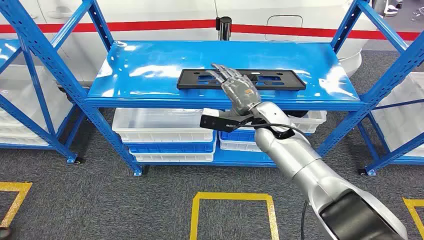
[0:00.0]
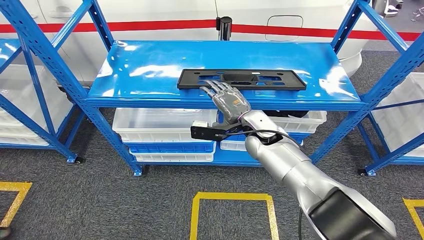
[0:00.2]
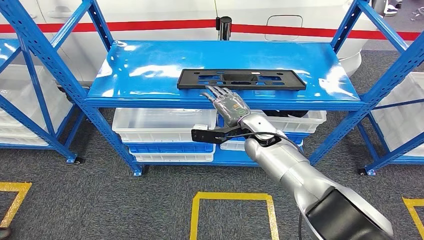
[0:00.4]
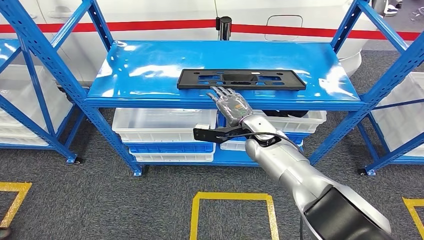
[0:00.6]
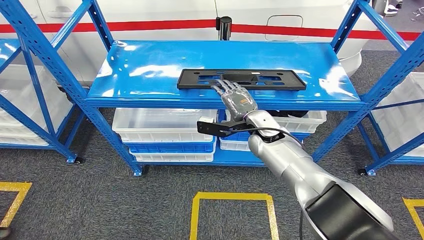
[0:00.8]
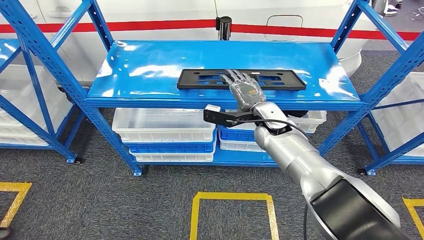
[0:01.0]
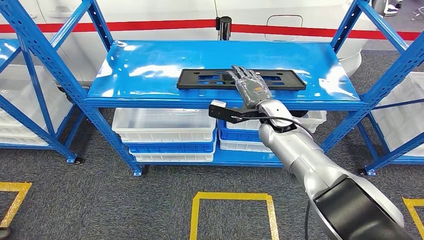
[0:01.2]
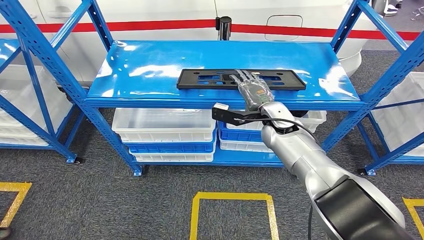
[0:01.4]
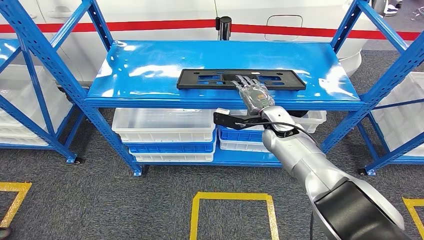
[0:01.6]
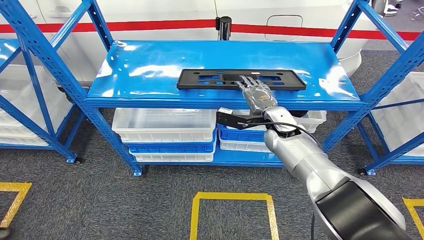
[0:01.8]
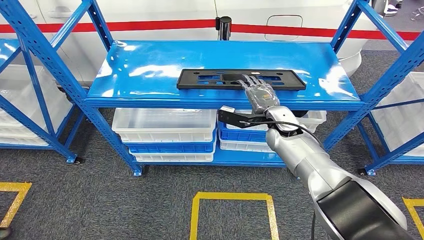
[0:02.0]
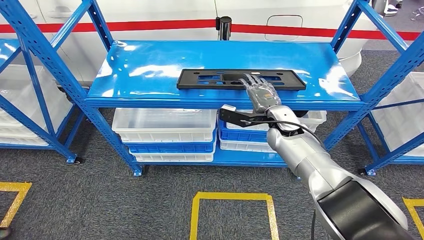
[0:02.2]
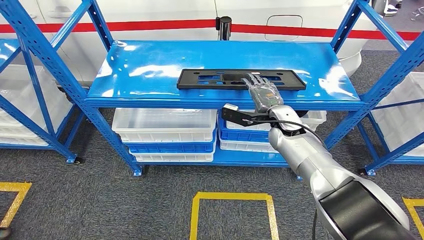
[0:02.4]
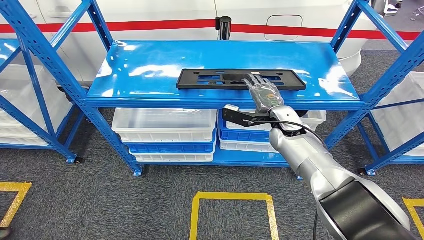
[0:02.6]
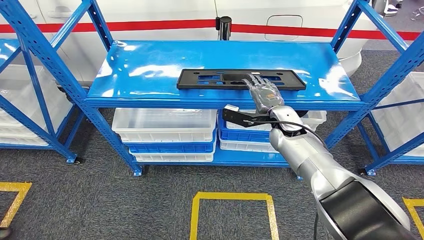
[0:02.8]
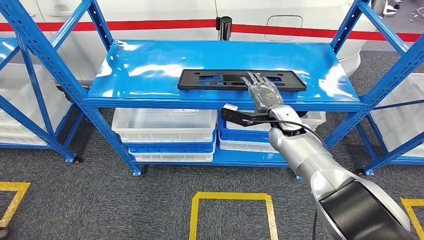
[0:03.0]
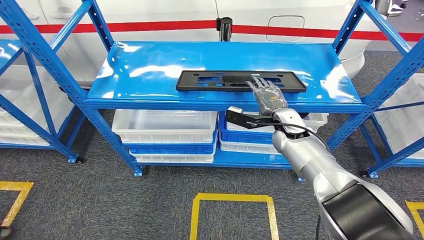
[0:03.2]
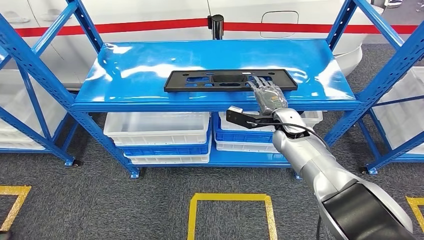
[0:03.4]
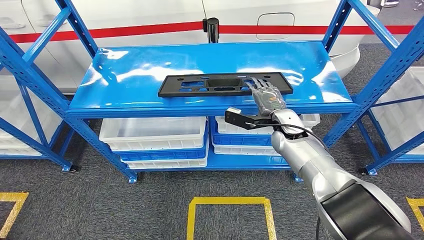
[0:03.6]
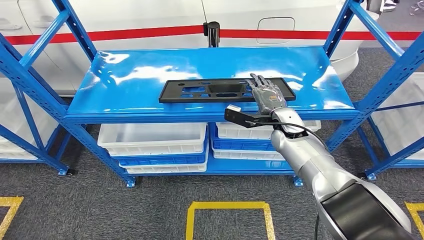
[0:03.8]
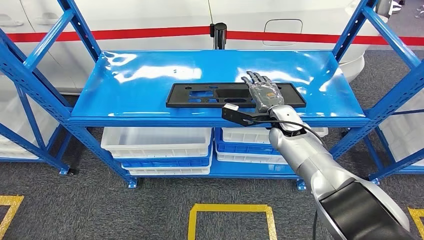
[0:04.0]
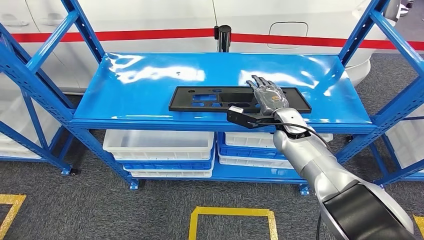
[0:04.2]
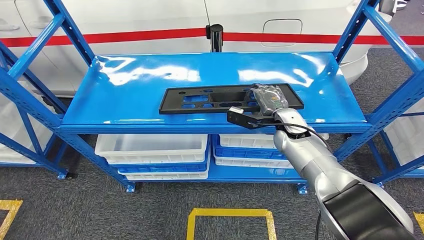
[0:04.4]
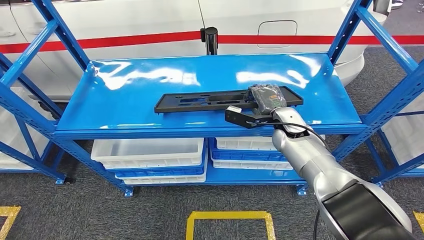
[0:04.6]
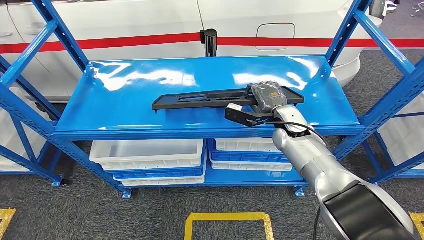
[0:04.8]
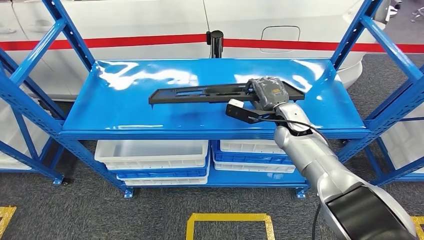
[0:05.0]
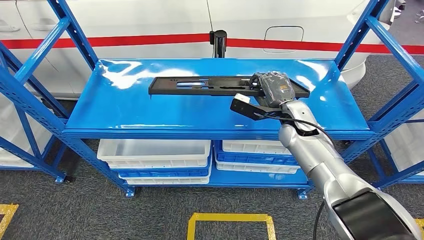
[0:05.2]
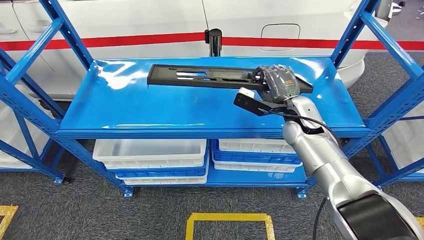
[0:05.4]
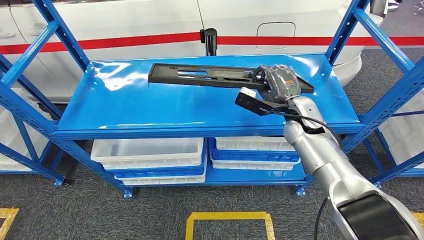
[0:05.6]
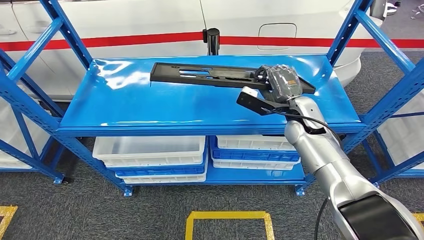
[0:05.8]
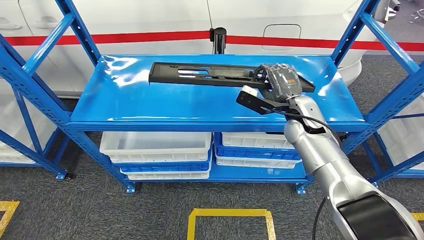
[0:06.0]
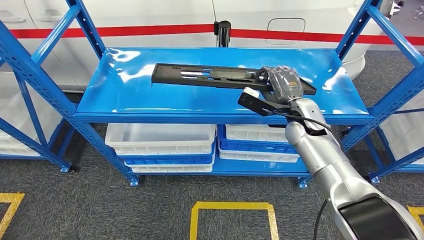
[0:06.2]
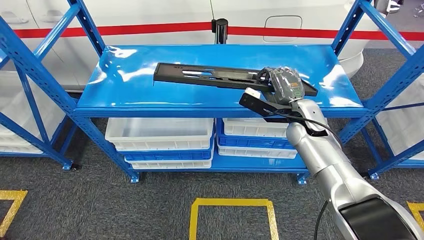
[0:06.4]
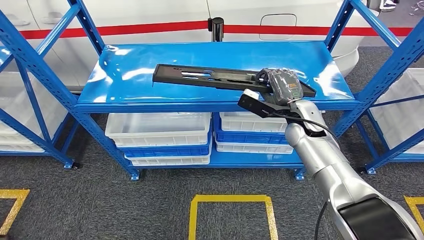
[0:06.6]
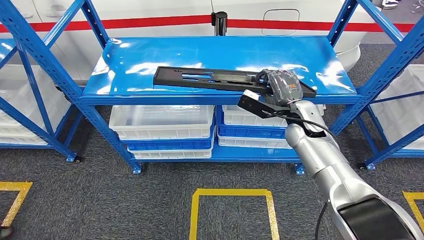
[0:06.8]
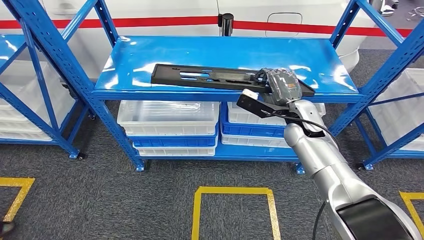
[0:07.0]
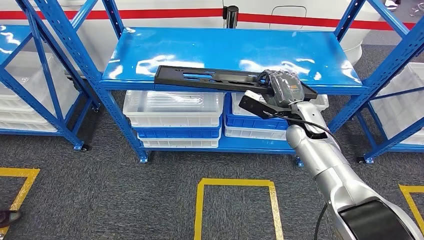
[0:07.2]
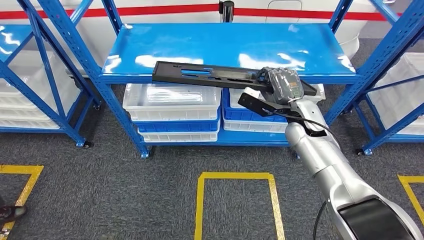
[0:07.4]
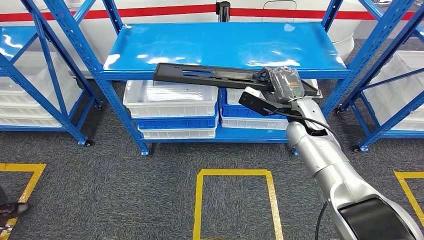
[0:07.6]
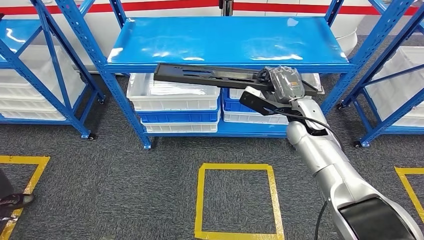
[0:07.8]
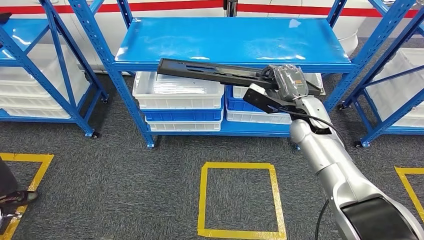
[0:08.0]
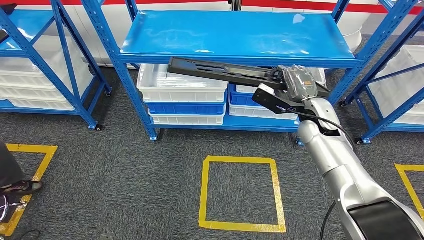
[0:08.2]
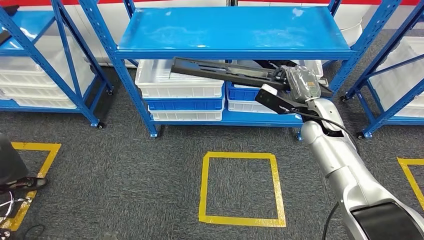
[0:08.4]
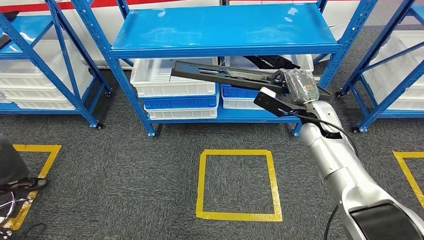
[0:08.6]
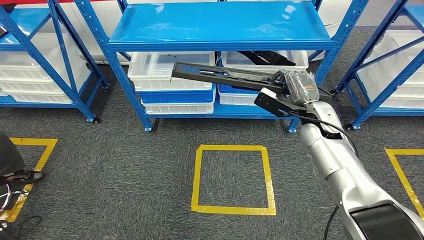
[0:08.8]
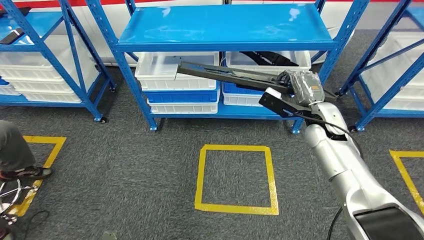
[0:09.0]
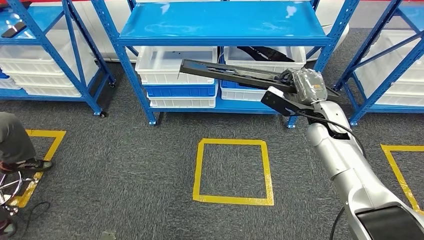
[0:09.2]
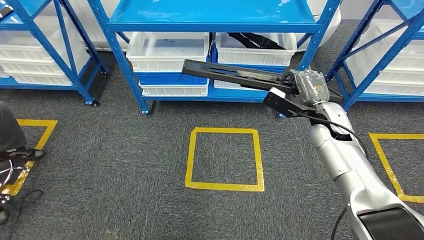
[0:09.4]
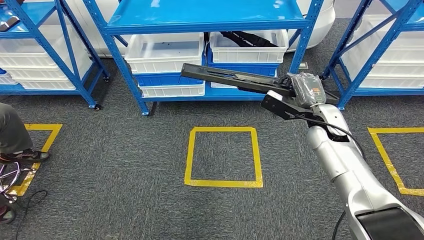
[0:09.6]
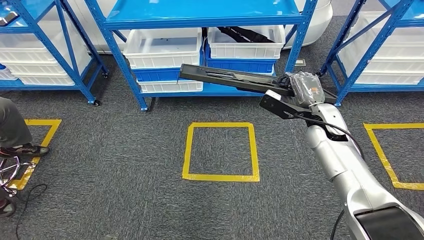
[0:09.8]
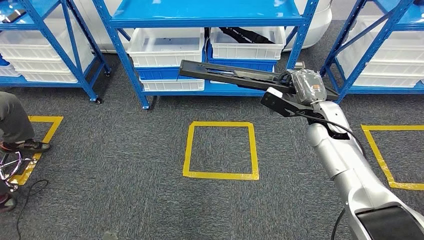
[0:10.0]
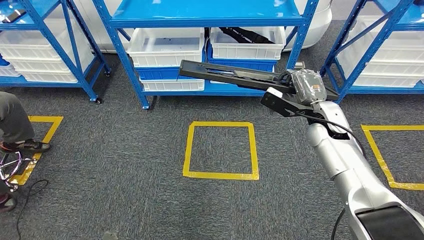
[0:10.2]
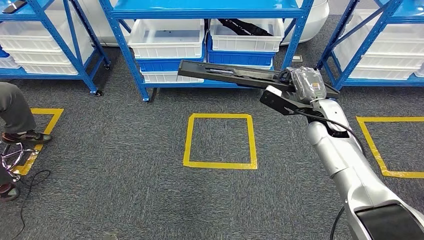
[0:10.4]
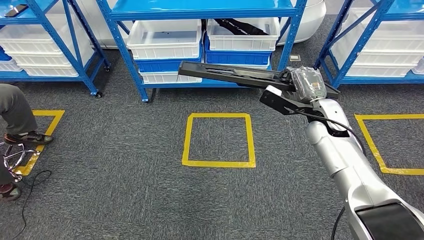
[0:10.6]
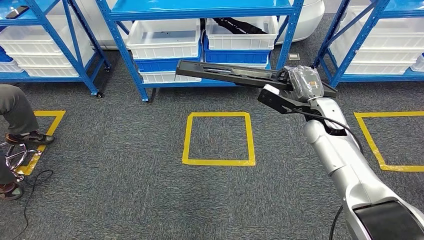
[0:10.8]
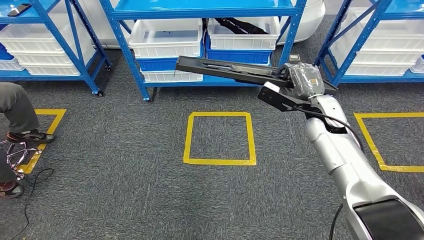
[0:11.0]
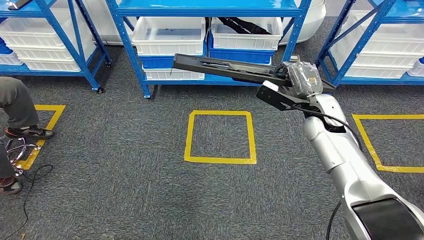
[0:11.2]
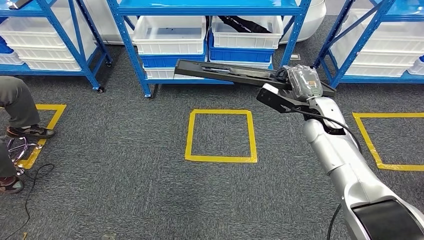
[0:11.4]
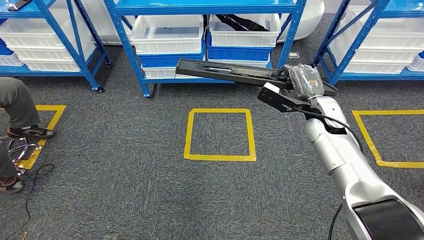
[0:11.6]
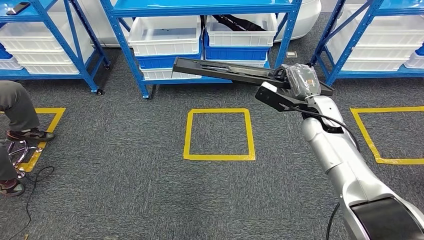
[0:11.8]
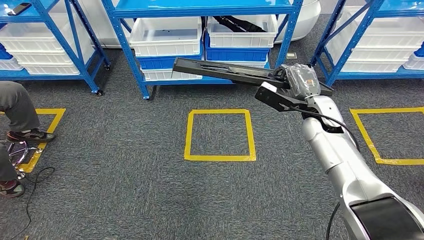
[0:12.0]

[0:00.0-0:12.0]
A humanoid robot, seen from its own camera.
Step, 0:00.0 to 0:05.0: Pick up the large material from the shelf.
0:01.6 to 0:03.0: There are only small adjustments of the hands.

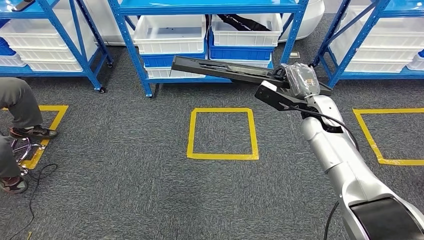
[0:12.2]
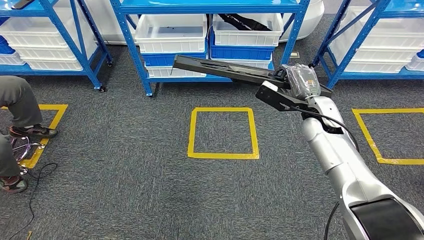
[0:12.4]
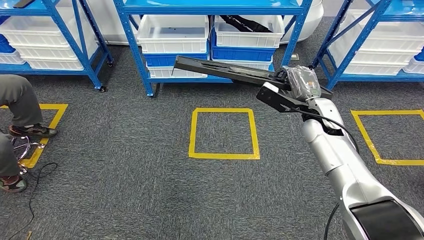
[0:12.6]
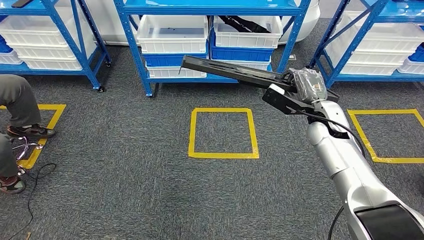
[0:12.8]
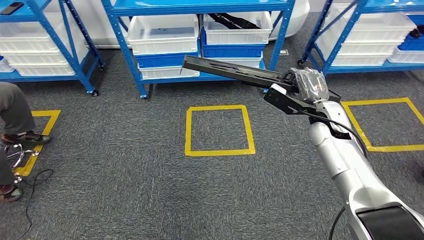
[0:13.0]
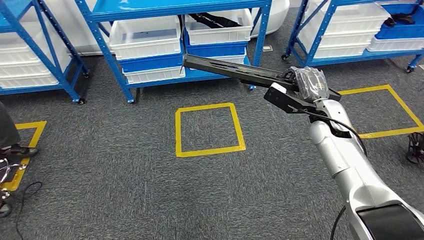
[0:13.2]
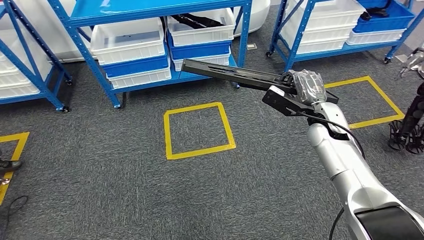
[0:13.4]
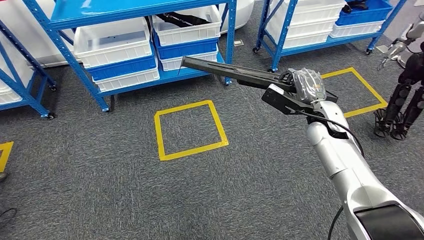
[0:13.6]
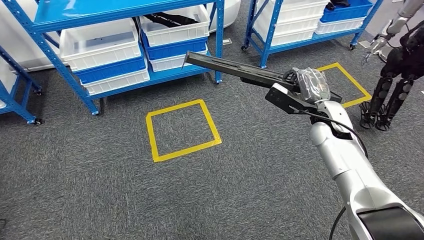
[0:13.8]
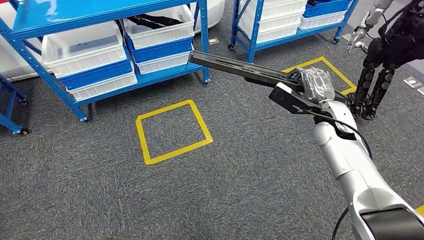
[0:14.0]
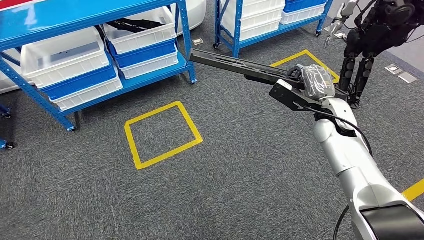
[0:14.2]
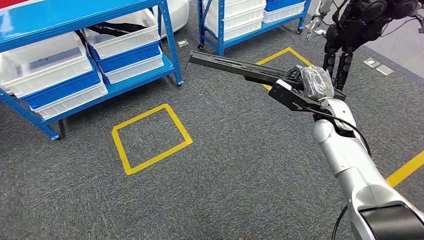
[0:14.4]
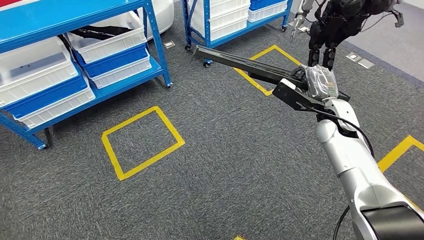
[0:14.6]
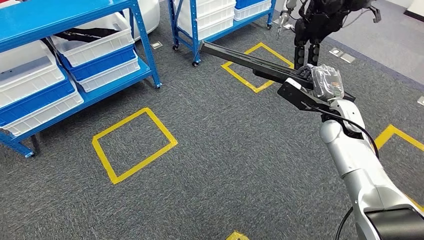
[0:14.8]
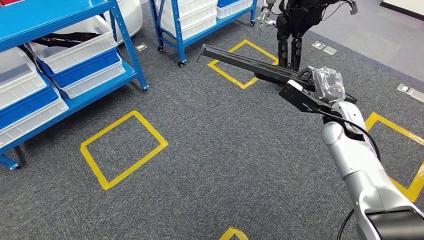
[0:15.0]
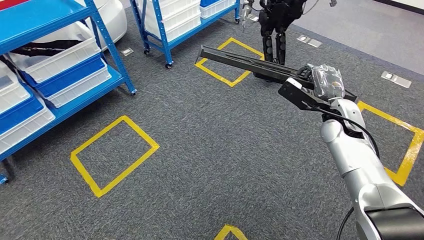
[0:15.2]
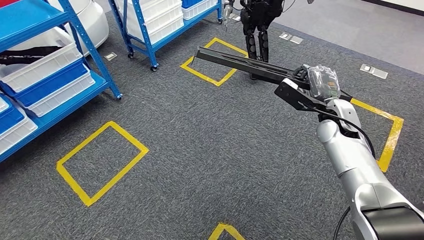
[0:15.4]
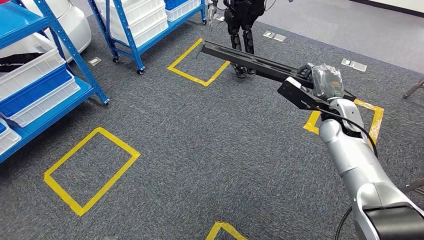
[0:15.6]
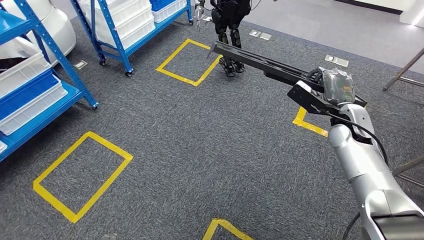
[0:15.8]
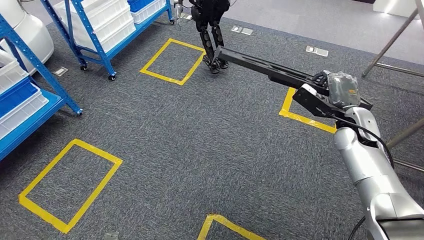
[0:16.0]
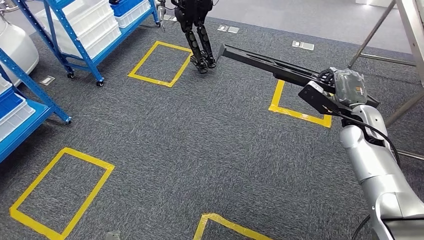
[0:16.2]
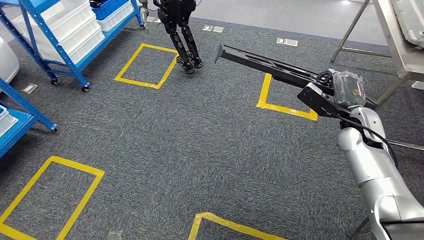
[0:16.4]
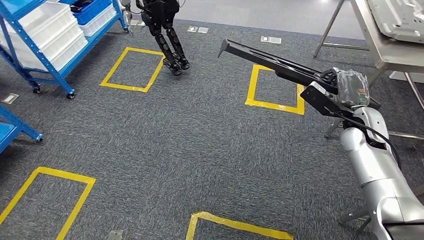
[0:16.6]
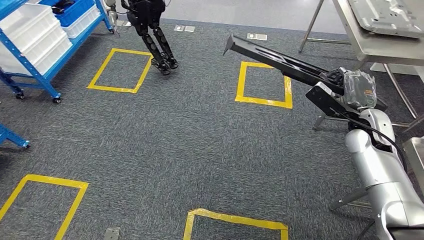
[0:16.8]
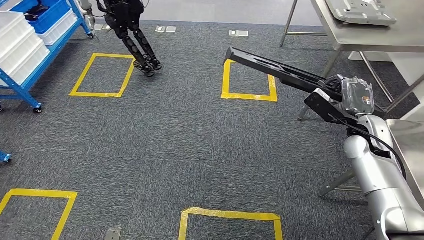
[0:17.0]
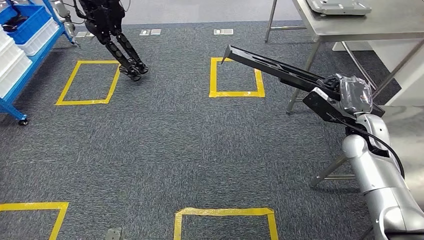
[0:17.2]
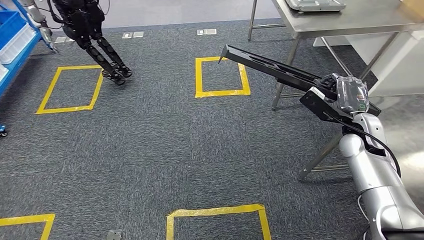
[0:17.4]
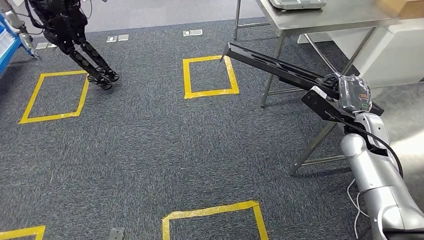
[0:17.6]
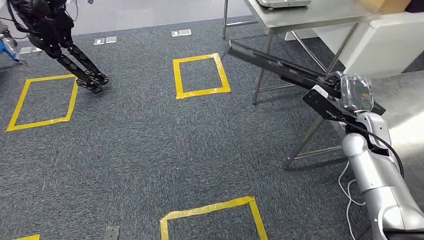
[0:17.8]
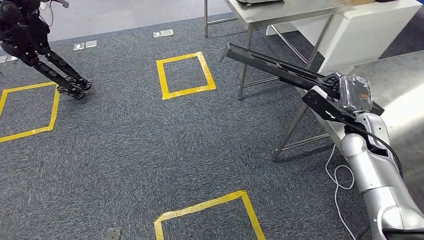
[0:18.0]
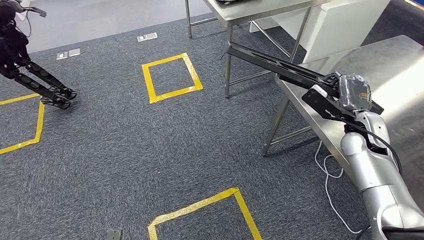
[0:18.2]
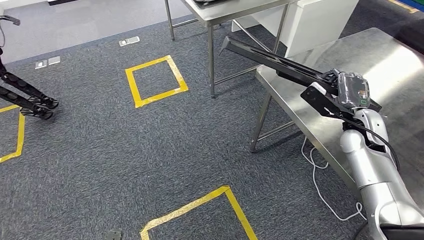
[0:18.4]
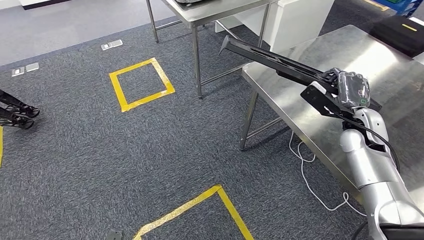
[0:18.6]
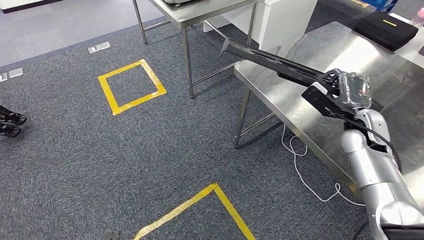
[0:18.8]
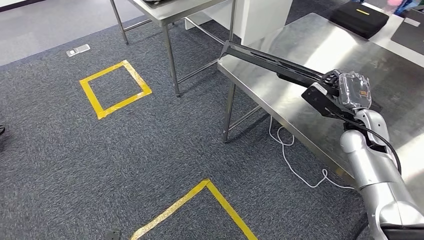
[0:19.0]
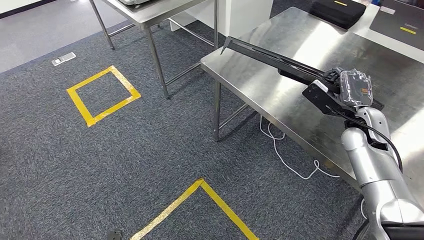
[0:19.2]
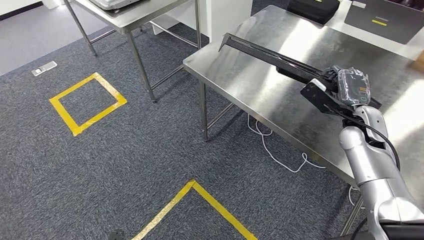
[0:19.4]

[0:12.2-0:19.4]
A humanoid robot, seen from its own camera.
Step, 0:12.2 to 0:17.8: Move the large material to the workbench.
